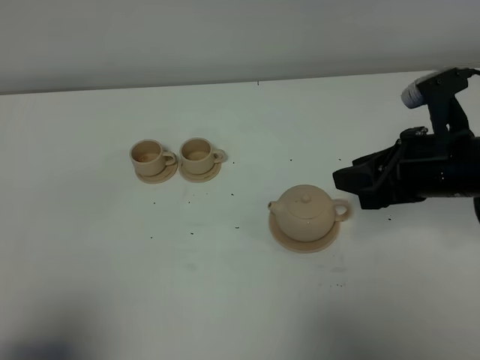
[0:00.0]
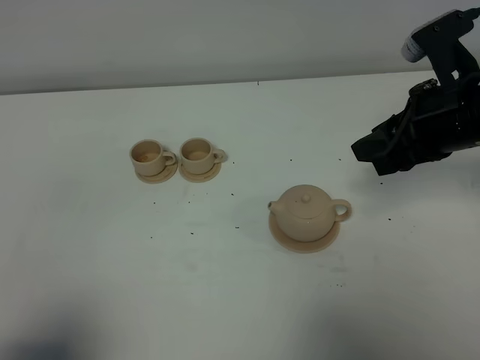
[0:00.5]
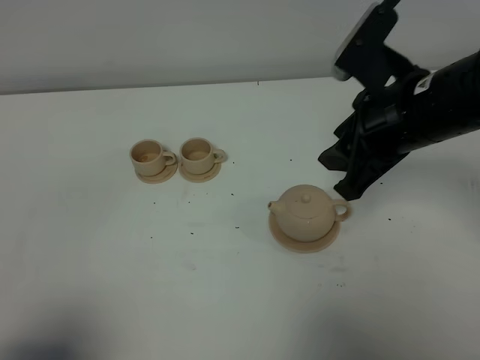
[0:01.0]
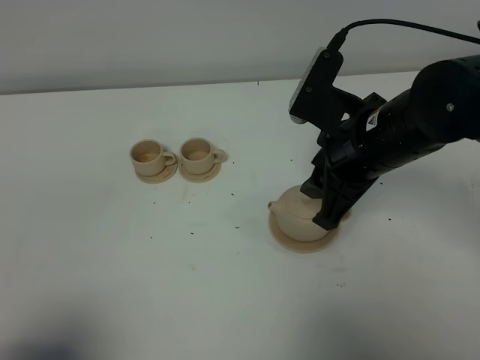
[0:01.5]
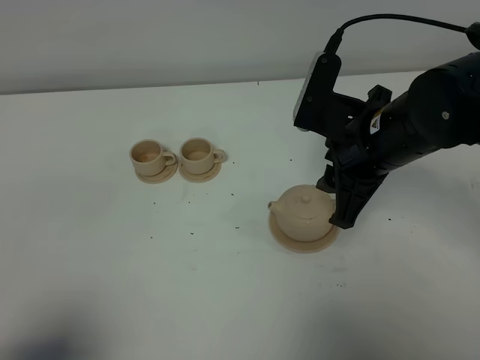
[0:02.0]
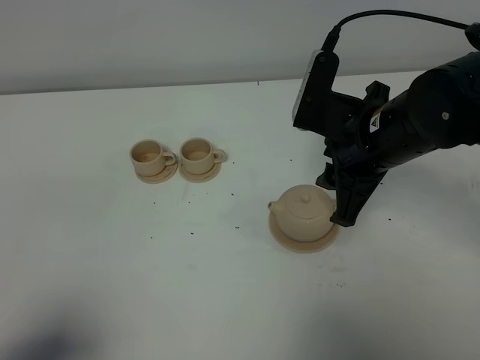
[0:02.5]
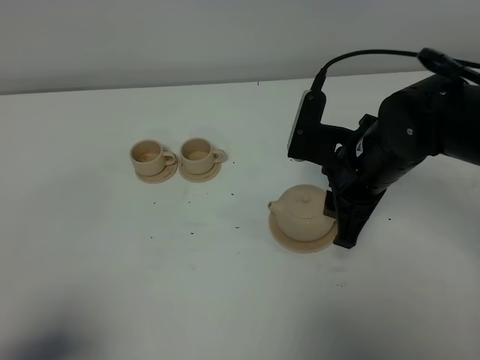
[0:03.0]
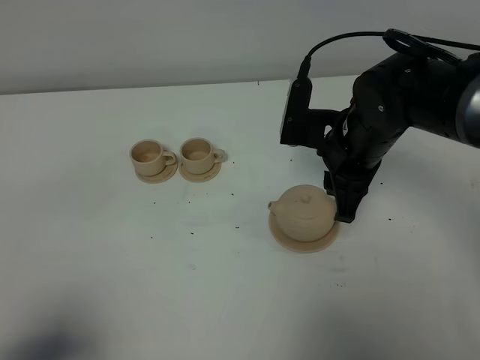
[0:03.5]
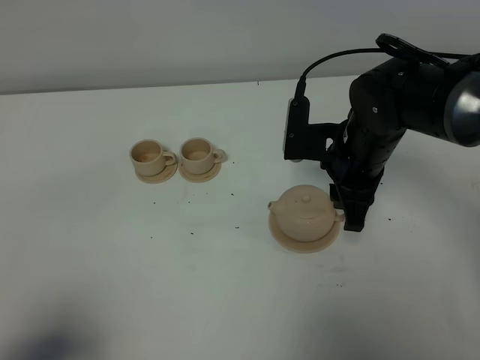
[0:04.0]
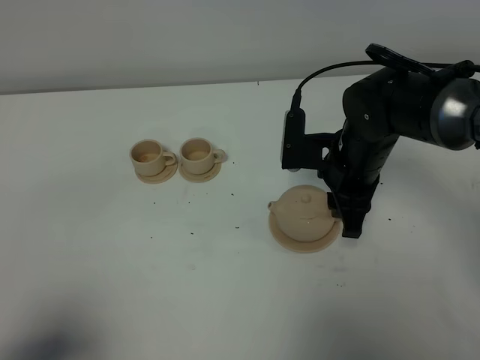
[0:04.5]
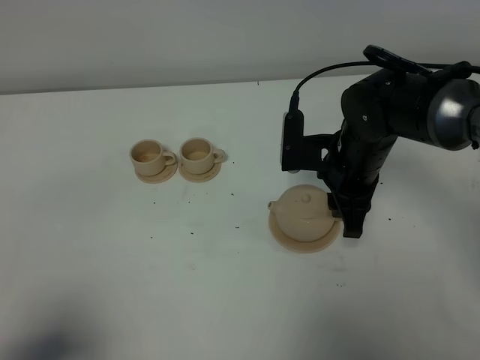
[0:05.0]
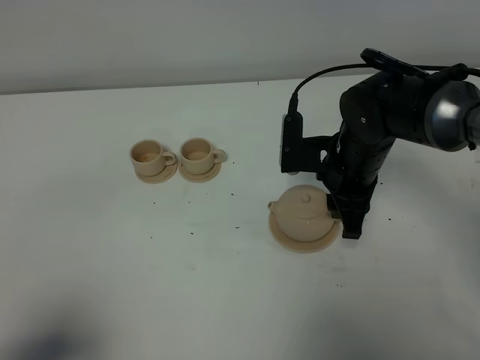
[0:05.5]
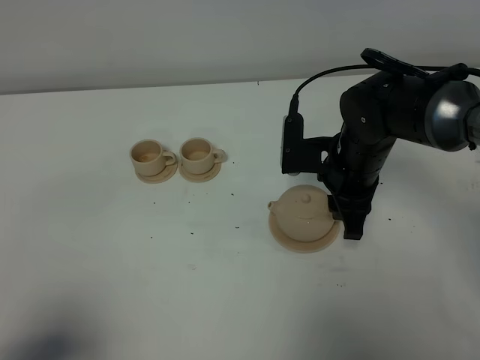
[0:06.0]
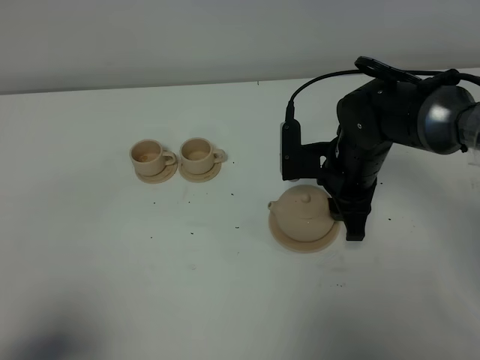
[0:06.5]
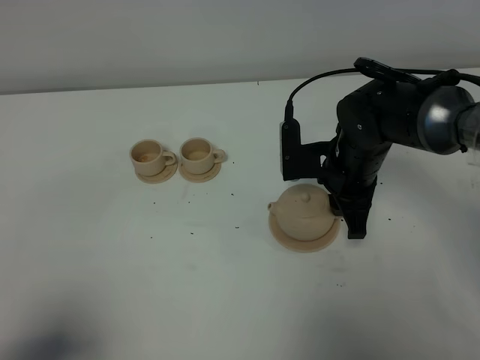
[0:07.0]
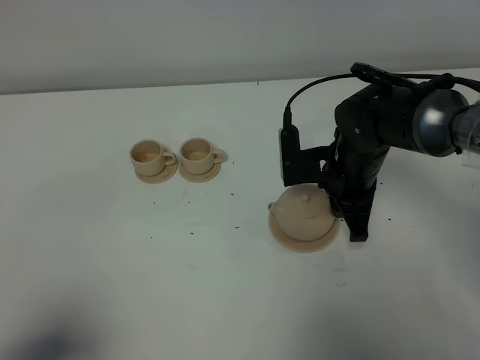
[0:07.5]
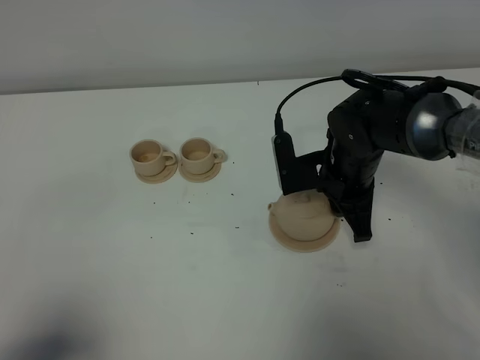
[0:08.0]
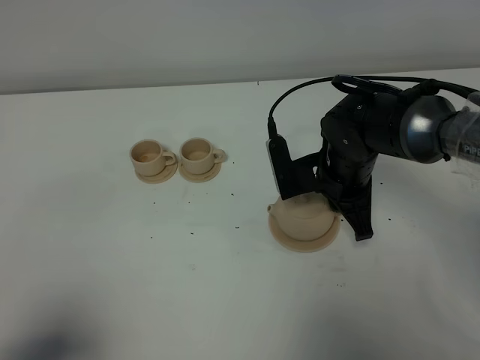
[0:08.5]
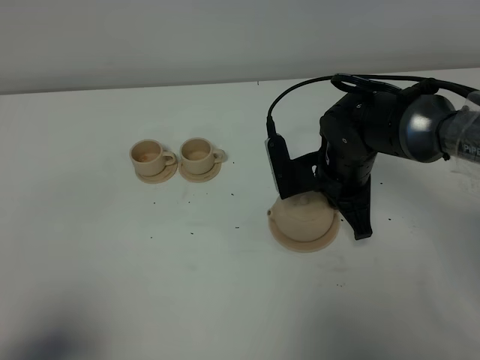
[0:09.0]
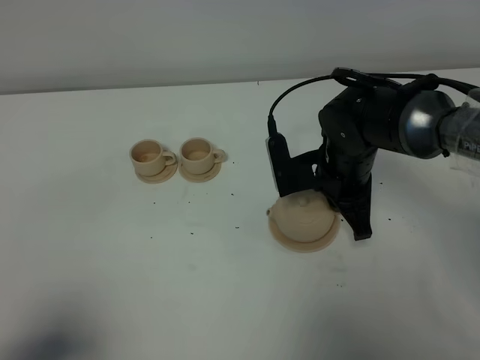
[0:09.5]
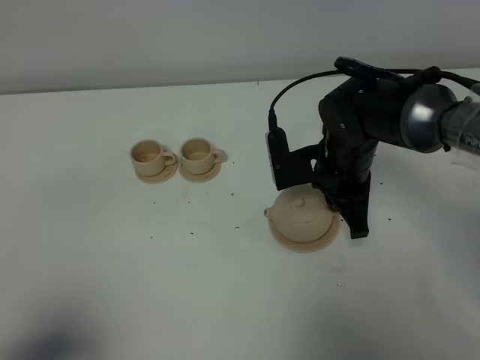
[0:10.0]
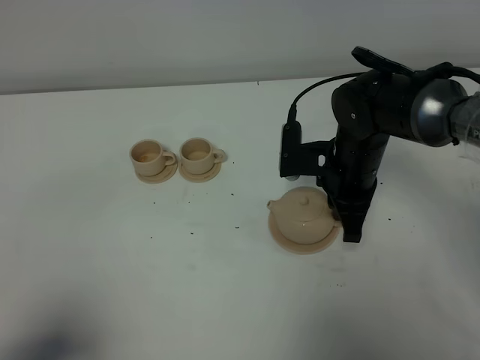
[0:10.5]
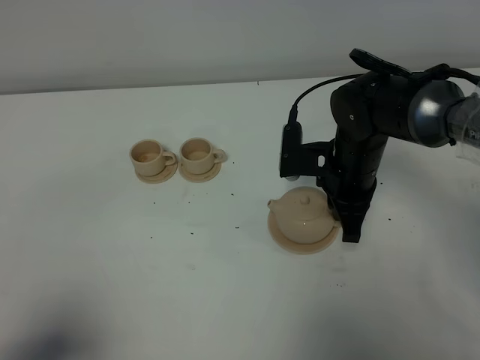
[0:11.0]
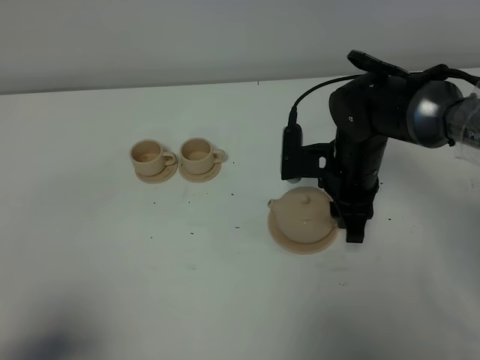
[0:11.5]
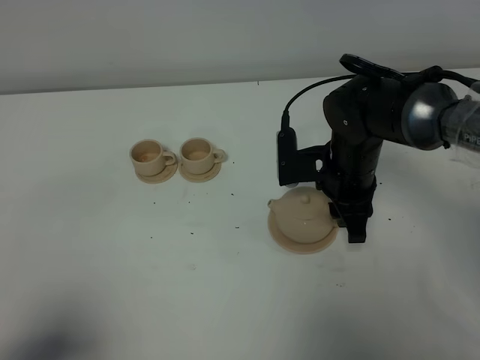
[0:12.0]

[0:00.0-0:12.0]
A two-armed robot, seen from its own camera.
Task of the whole recording: grasp the brown teapot and pour the tea into the two brown teacups one by one, put the brown teapot back in its original place.
0:00.0 to 0:02.0: The right gripper goes approximately 10 cm to the left.
0:02.0 to 0:04.0: The right gripper goes approximately 5 cm downward.
0:04.0 to 0:08.0: There are only small adjustments of the grippers.
0:08.0 to 0:10.0: The right gripper closes up.
0:10.0 to 0:12.0: The right gripper opens.

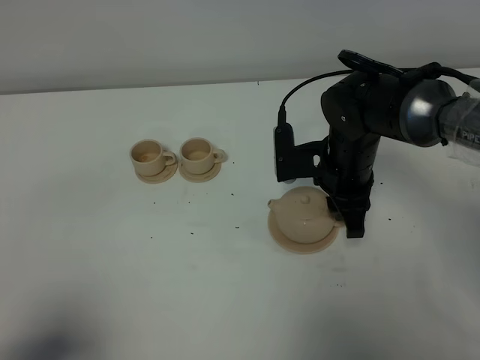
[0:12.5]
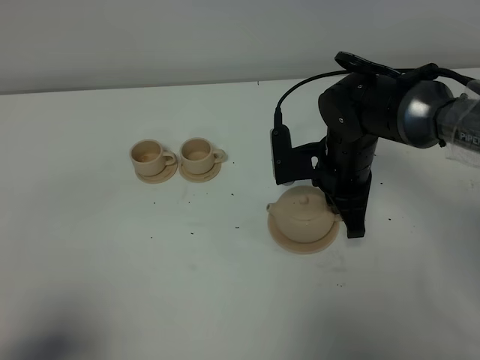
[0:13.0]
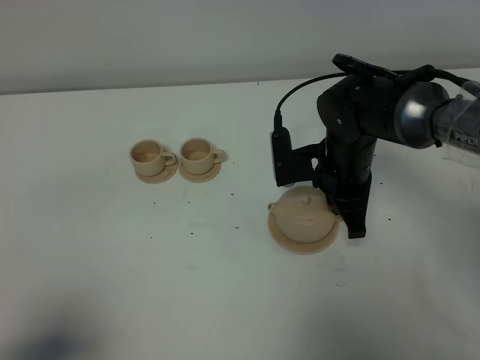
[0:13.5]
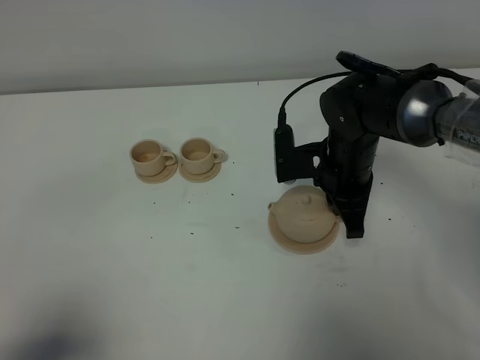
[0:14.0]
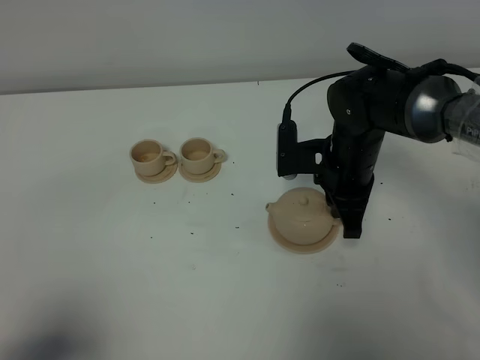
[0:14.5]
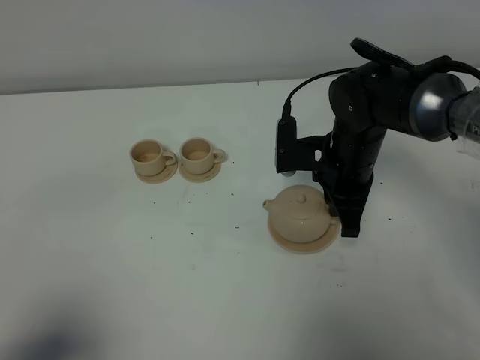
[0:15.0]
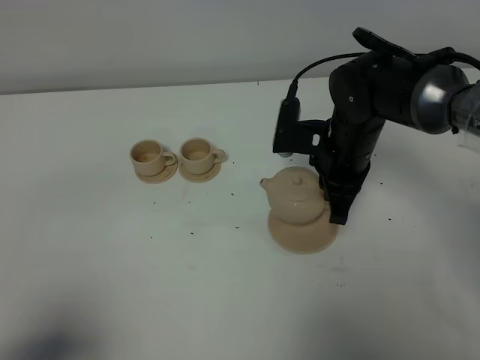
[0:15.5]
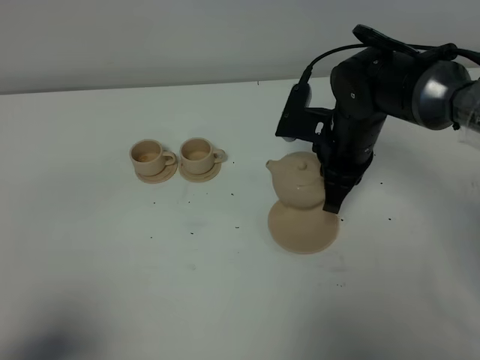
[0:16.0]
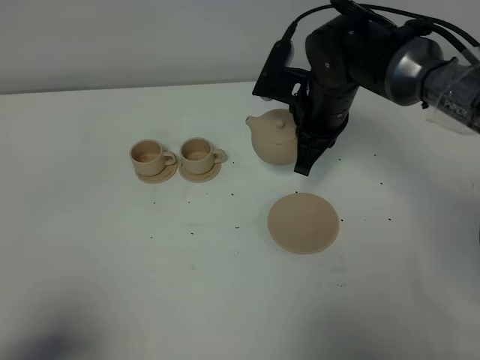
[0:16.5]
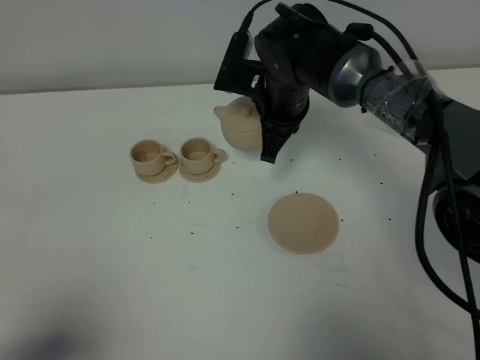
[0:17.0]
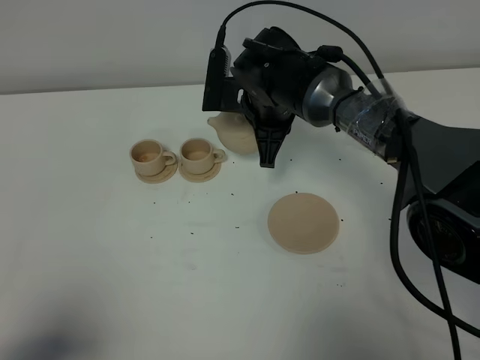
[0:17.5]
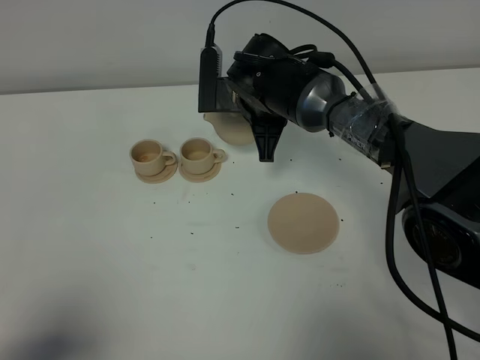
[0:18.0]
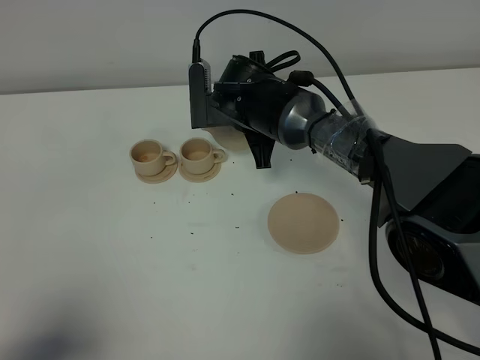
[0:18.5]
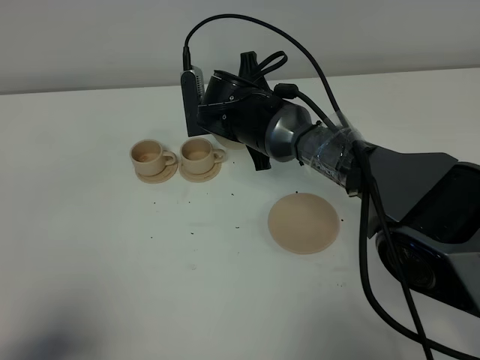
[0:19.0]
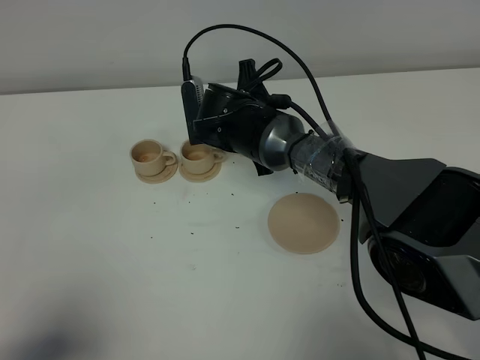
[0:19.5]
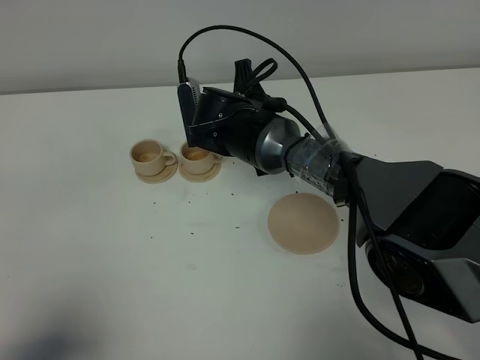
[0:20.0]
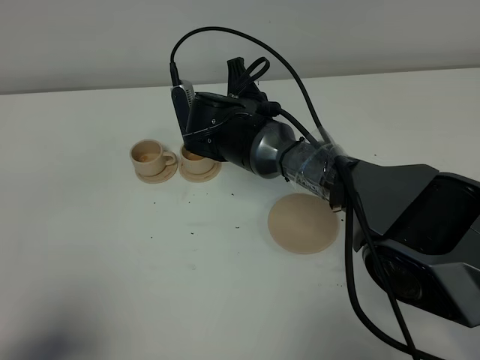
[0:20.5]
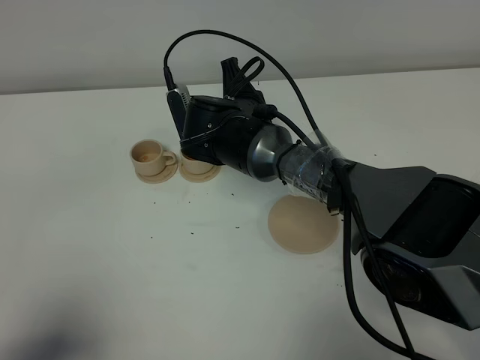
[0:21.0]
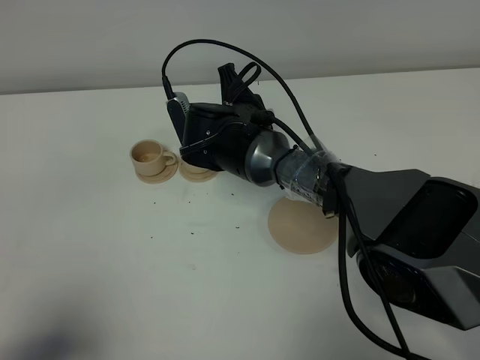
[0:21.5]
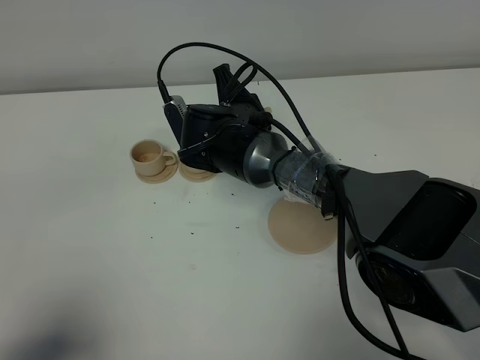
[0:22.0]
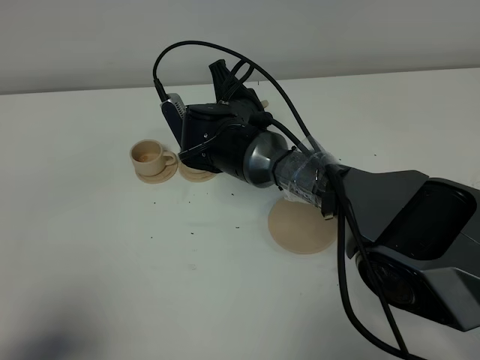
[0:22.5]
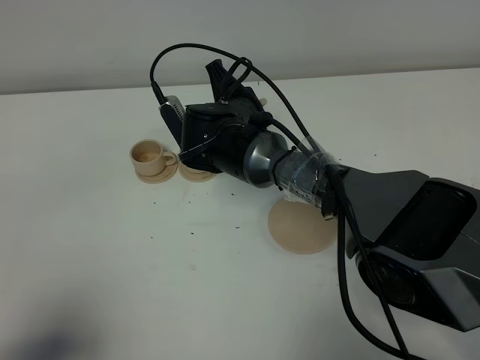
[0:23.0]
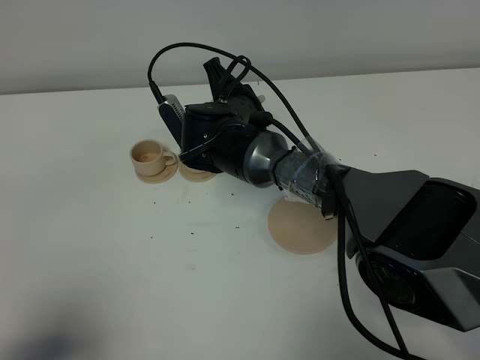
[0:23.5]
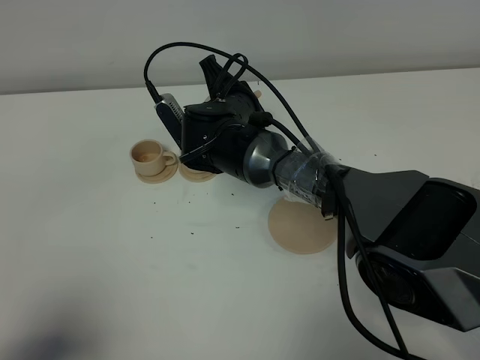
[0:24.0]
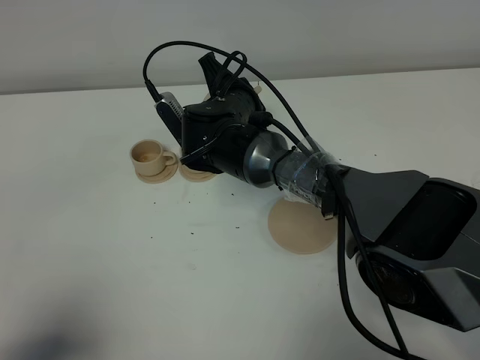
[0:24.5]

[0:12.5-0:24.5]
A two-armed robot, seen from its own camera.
Task of the whole recording: grasp the brown teapot and pour the tea into the two brown teacups one by one, put the brown teapot back in its original place.
Step, 0:12.5 to 0:15.0: Pick up the teapot with the right gripper.
0:12.5 to 0:14.5: The right gripper closes its fingers.
0:14.5 to 0:16.5: The right gripper ends up about 10 cm from where it was.
0:16.5 to 0:18.5: The right gripper heads to the left, covering approximately 10 cm.
0:20.5 to 0:24.5: The grippers stay close to where they were, moving slightly.

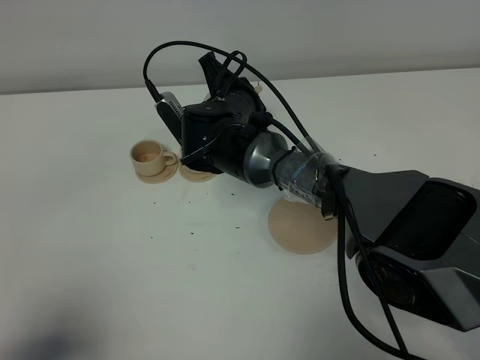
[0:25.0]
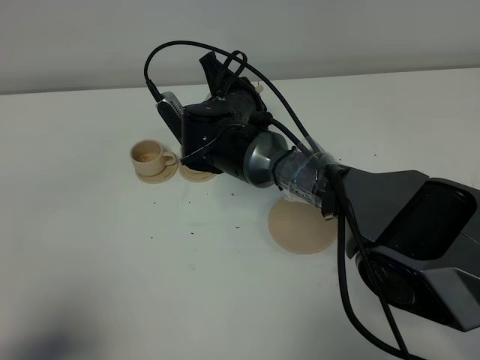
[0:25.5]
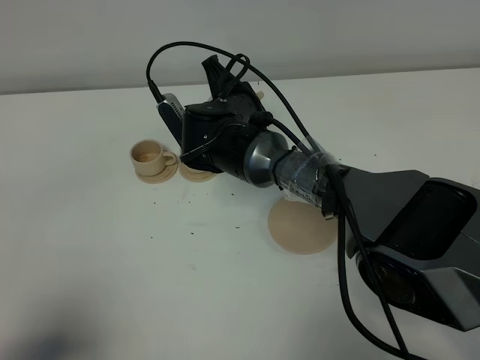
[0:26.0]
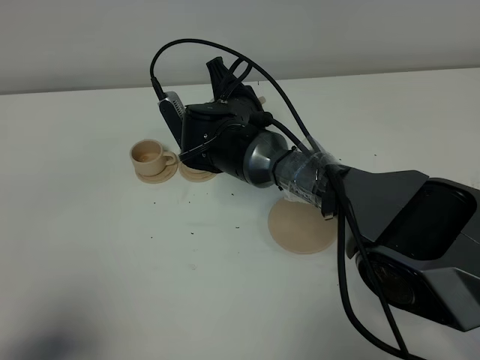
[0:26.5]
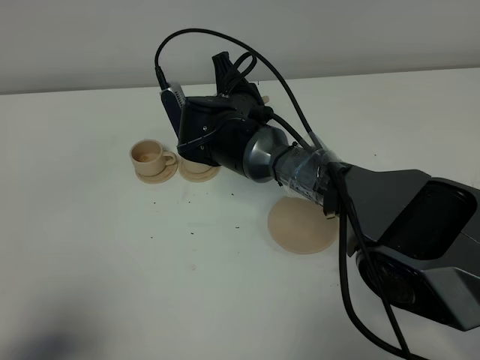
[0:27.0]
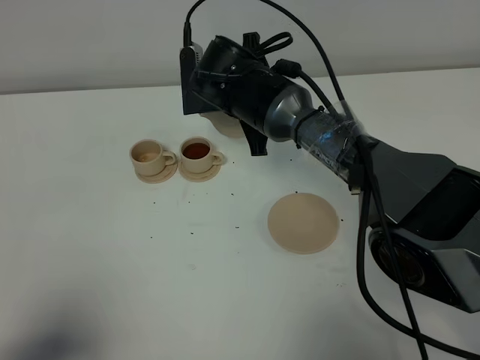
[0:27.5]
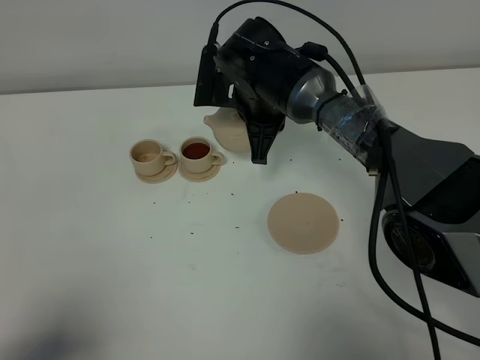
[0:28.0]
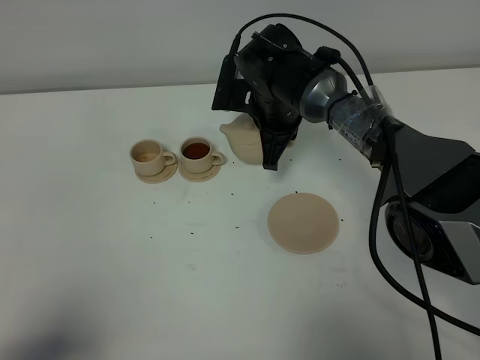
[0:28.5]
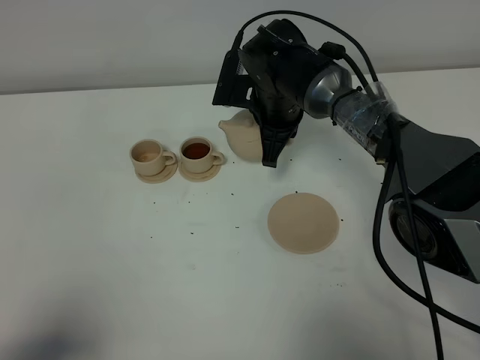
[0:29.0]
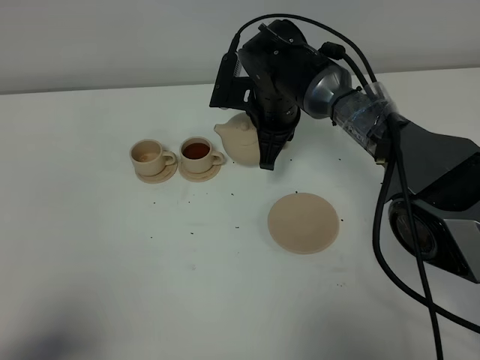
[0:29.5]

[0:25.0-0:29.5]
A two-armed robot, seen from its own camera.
Task of the whole recording: grasp the brown teapot and pour the tea into the two brown teacups one by one, put the brown teapot back in its original place.
Step, 0:25.0 to 0:27.0: Pour tea into the teacup with the right gripper.
0:25.0 to 0:27.0: The grippers move only a little.
0:27.0 to 0:29.5: The right gripper travels to the right by some 5 cm.
